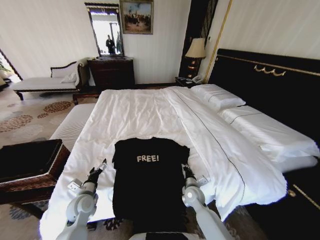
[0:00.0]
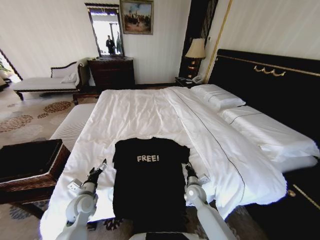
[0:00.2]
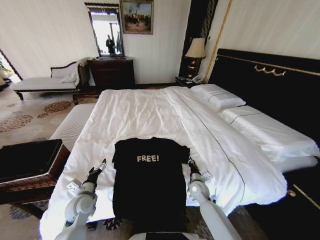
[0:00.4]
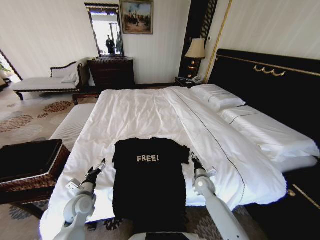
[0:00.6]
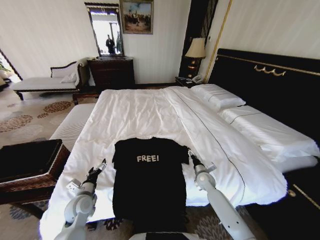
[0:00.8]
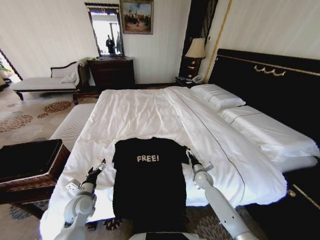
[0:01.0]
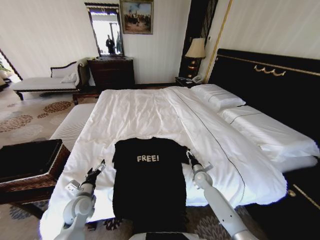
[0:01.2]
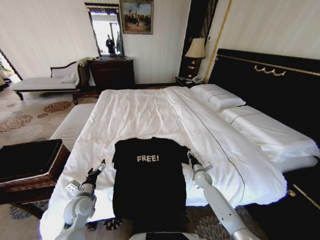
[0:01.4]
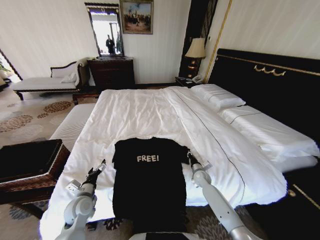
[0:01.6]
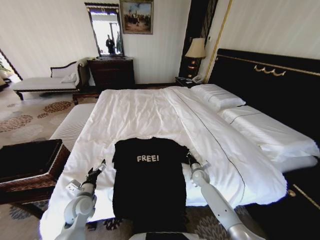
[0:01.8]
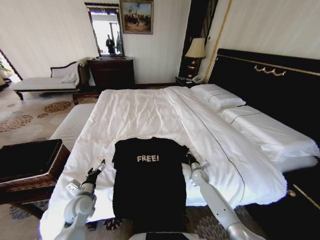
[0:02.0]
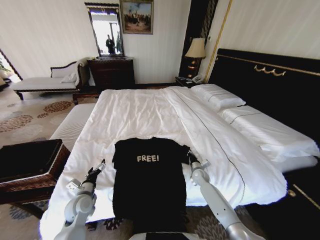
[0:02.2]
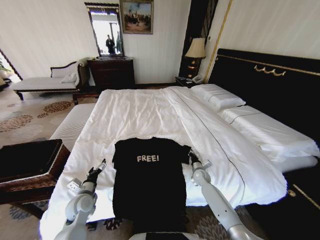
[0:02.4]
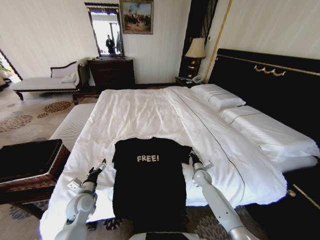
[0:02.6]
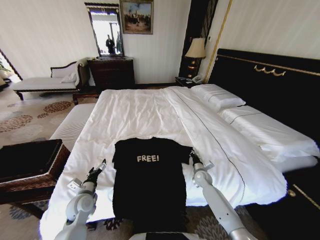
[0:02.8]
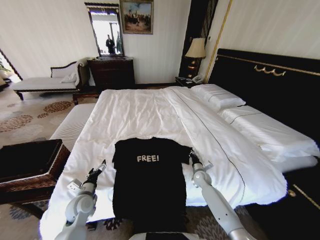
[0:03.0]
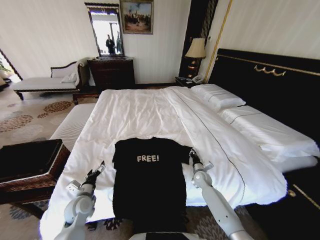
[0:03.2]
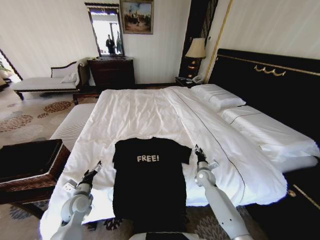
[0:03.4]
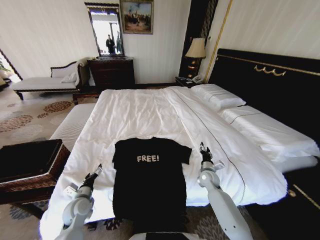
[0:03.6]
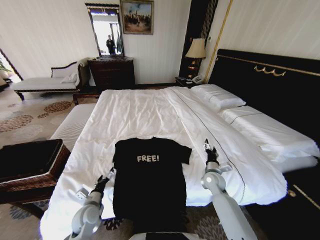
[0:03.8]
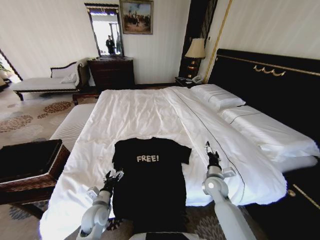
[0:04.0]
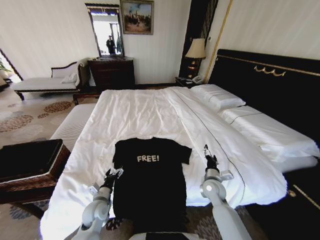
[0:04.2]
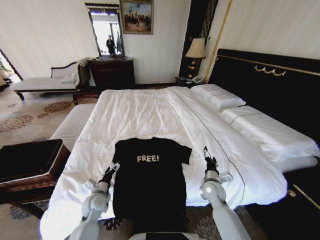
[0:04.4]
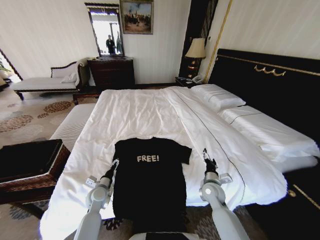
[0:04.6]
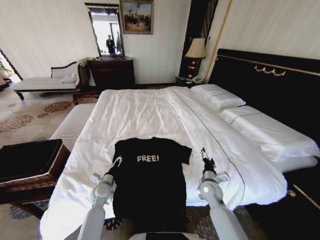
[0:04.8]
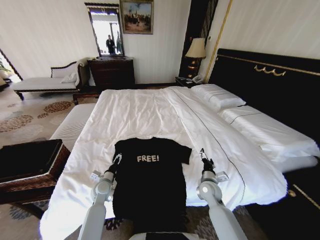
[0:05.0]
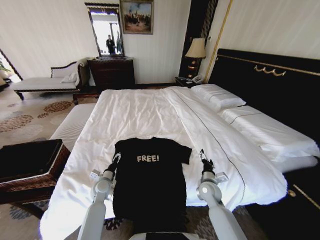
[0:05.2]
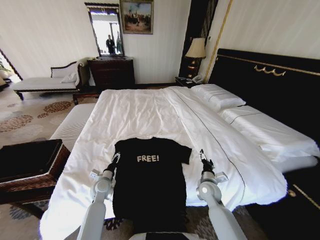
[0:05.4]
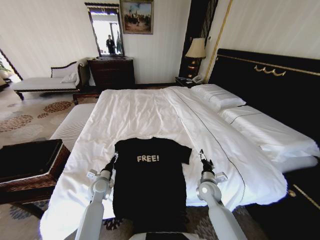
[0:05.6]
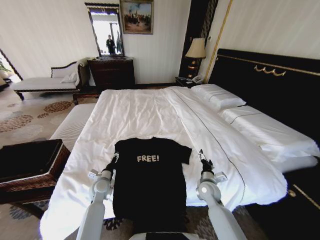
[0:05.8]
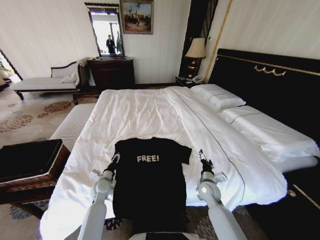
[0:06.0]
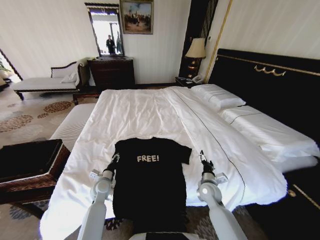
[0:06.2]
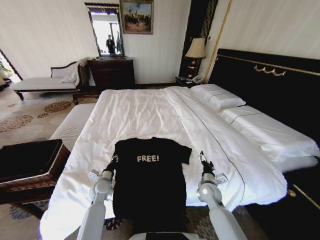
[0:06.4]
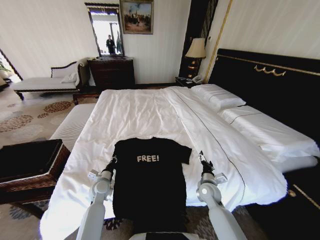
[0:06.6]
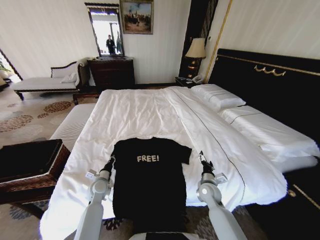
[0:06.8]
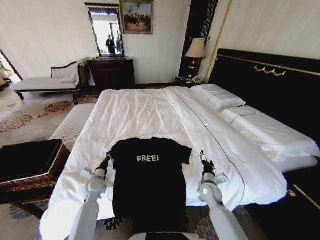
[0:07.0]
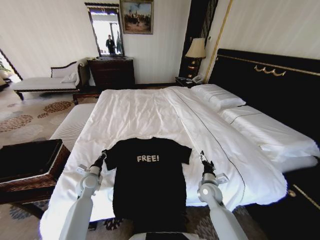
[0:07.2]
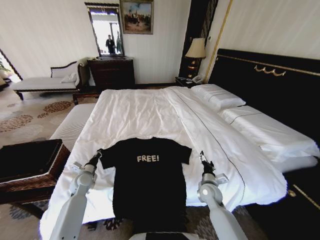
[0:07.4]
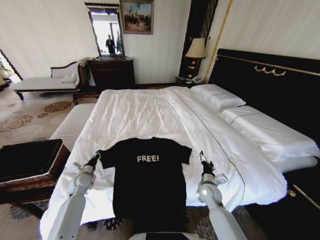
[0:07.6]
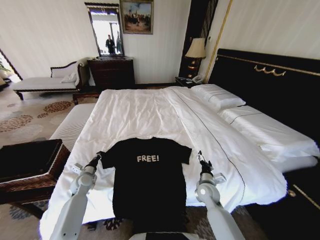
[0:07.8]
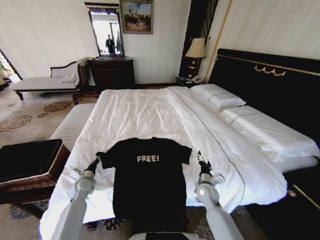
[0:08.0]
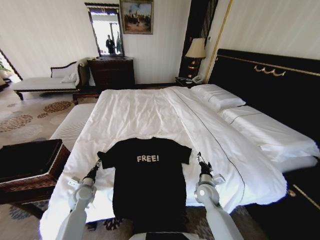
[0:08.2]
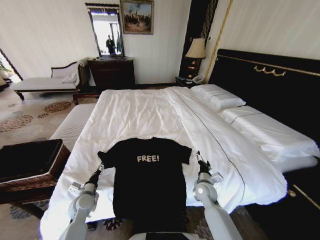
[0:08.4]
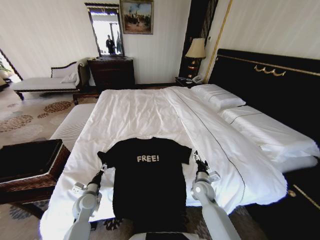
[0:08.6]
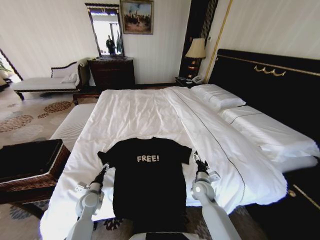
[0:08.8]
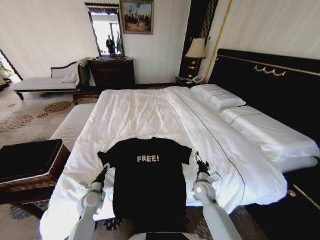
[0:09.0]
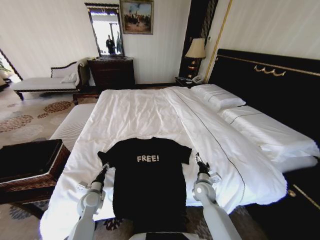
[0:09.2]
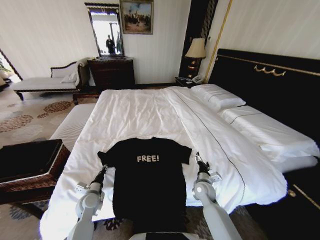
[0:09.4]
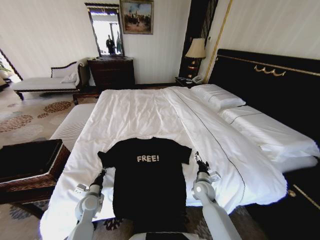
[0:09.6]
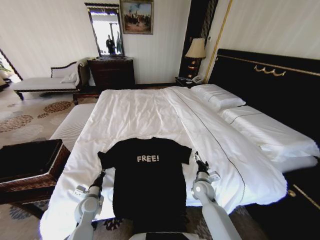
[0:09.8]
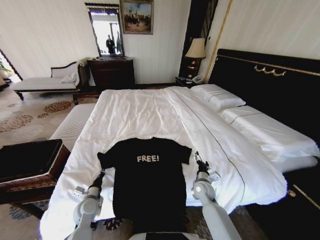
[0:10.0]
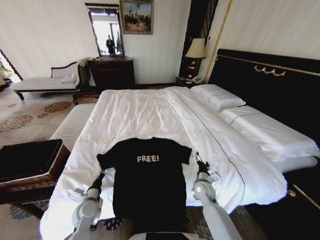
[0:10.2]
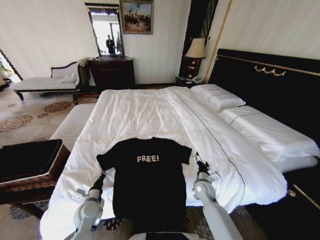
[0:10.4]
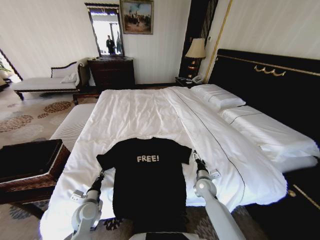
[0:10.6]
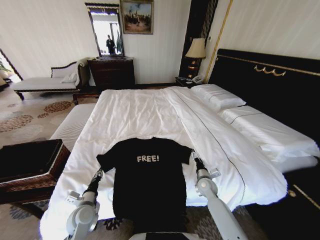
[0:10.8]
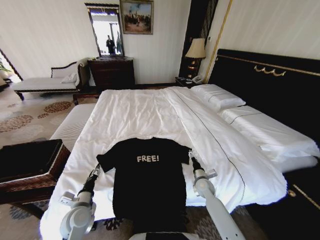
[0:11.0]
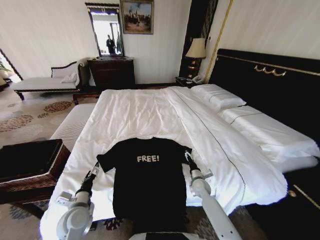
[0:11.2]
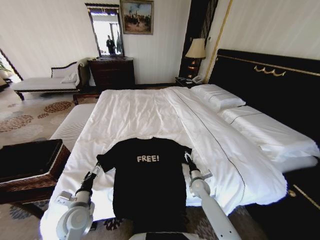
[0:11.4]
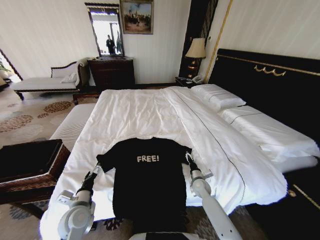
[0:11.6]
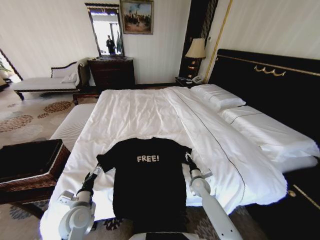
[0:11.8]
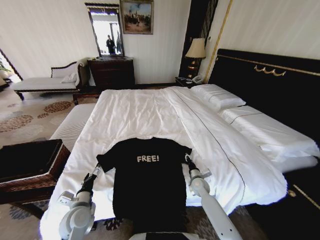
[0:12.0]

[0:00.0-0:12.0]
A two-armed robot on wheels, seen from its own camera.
Task of the whole recording: Fold the clothes on the bed and place them into the basket.
0:00.0 to 0:01.6: The right gripper shifts roughly 15 cm forward and to the right, and opens and closes again.
0:01.6 to 0:03.0: There are only small adjustments of the grippers.
0:03.0 to 0:04.4: The right gripper goes about 15 cm backward and upward, and opens its fingers. Meanwhile the left gripper changes place by some 5 cm.
0:04.4 to 0:06.0: The left gripper shifts some 5 cm forward.
0:06.0 to 0:07.6: The left gripper is displaced to the left by roughly 10 cm, and closes its fingers.
0:07.6 to 0:09.0: The left gripper goes roughly 10 cm backward and to the right, and opens up.
0:09.0 to 0:10.4: The left gripper closes up.
0:10.4 to 0:12.0: The left gripper goes some 5 cm upward, and opens its fingers; the right gripper closes.

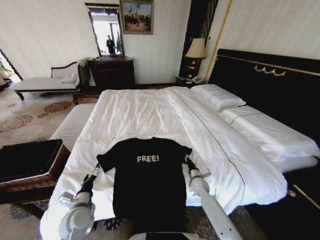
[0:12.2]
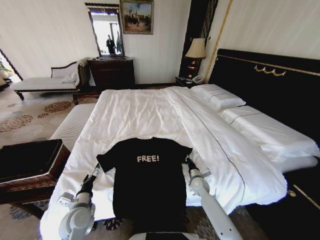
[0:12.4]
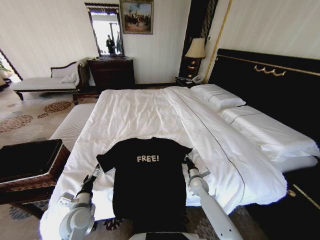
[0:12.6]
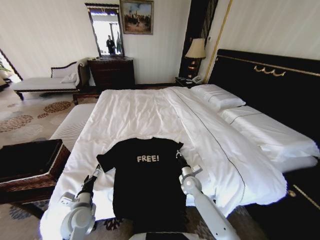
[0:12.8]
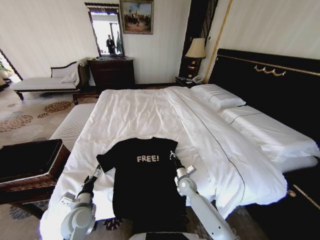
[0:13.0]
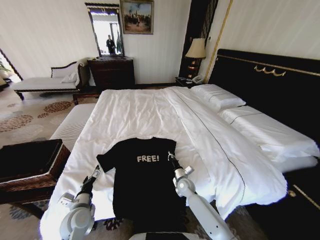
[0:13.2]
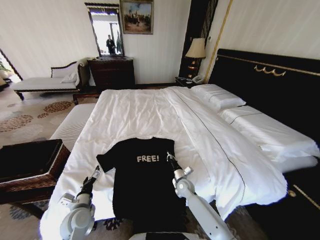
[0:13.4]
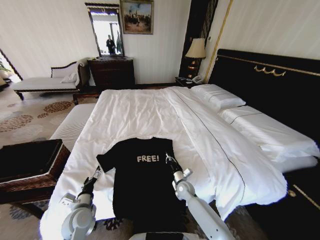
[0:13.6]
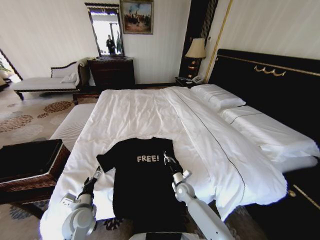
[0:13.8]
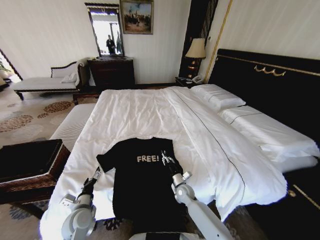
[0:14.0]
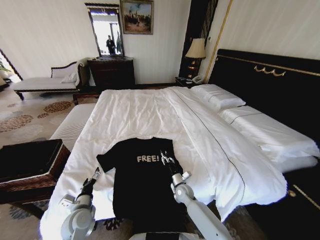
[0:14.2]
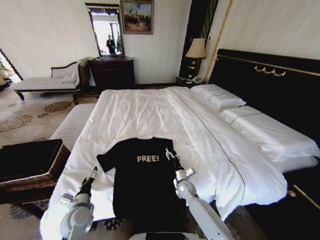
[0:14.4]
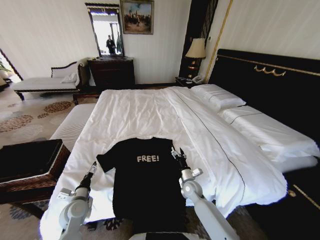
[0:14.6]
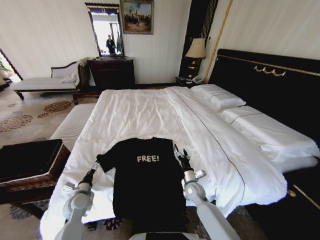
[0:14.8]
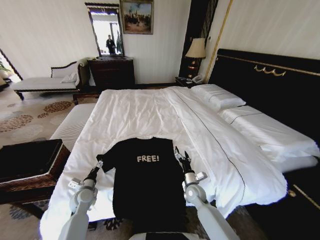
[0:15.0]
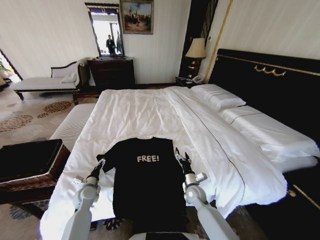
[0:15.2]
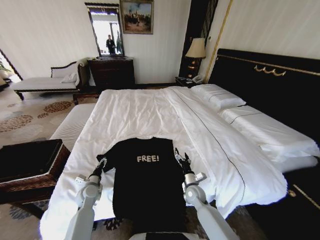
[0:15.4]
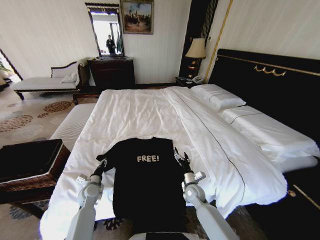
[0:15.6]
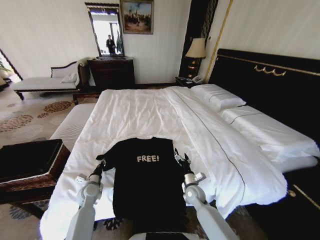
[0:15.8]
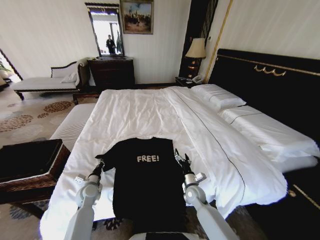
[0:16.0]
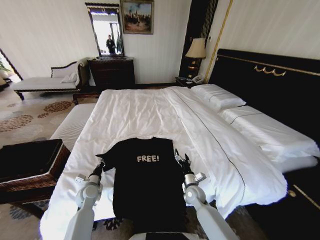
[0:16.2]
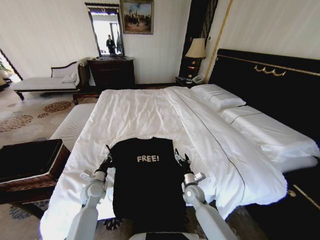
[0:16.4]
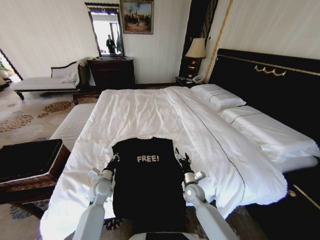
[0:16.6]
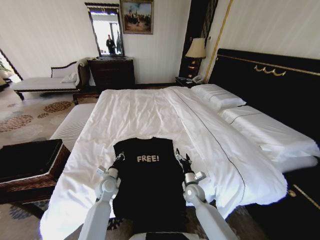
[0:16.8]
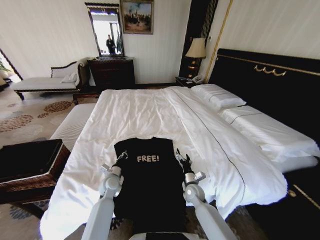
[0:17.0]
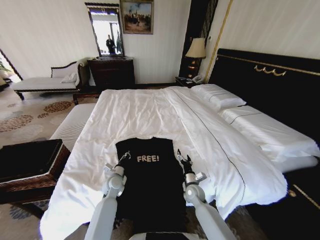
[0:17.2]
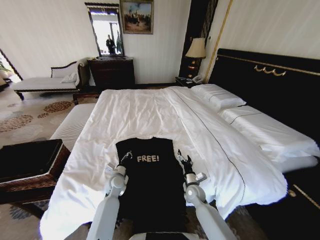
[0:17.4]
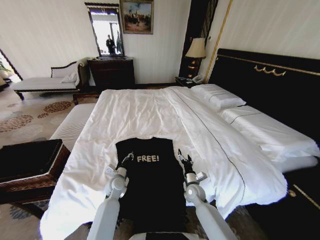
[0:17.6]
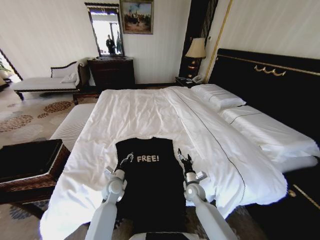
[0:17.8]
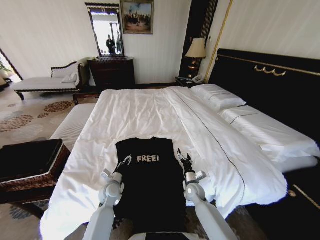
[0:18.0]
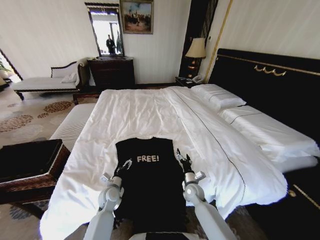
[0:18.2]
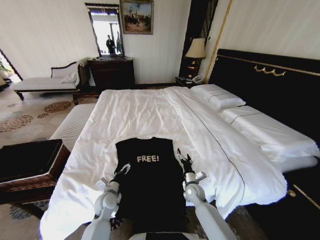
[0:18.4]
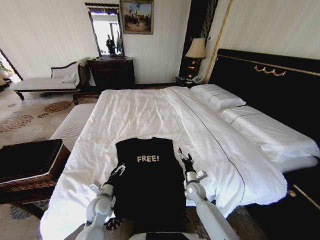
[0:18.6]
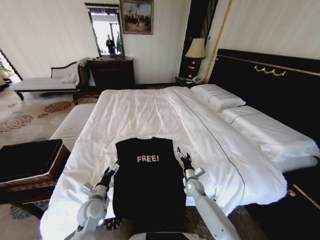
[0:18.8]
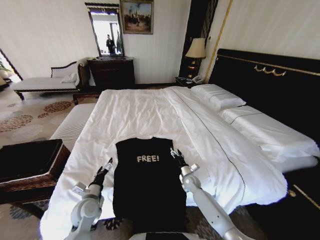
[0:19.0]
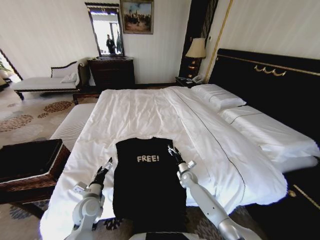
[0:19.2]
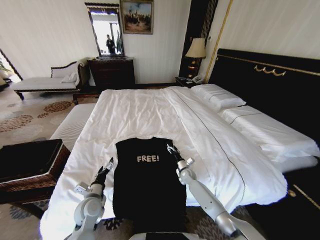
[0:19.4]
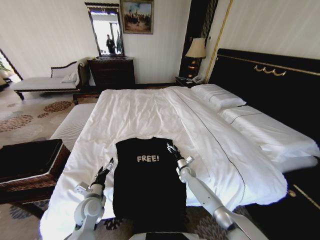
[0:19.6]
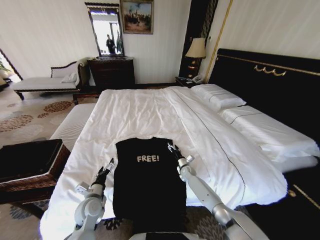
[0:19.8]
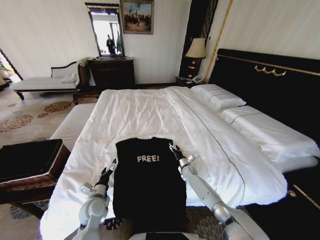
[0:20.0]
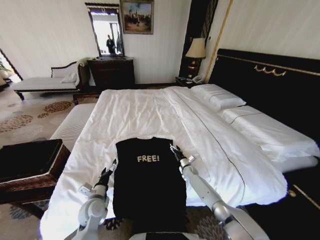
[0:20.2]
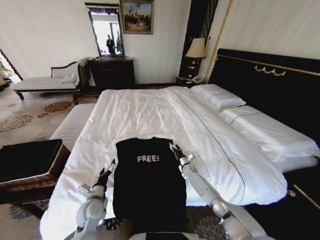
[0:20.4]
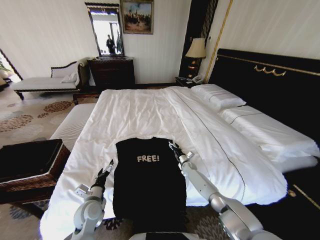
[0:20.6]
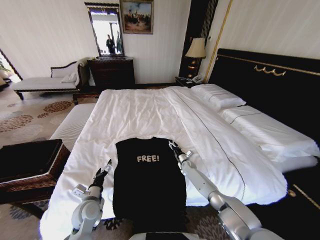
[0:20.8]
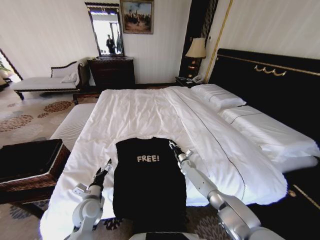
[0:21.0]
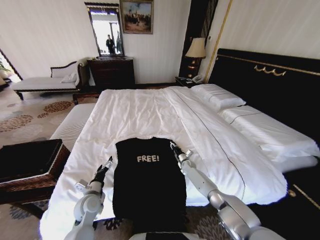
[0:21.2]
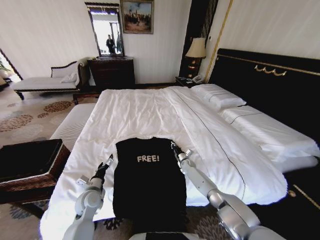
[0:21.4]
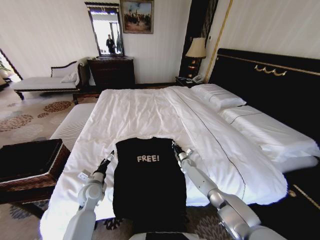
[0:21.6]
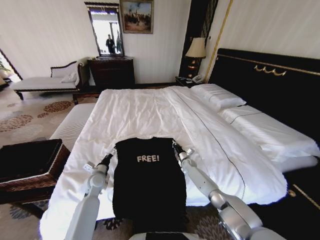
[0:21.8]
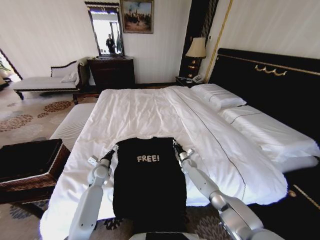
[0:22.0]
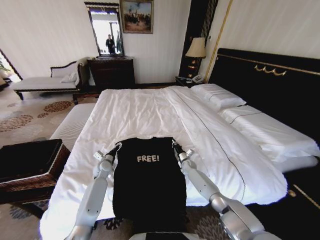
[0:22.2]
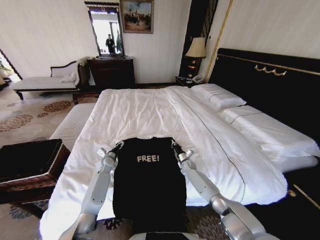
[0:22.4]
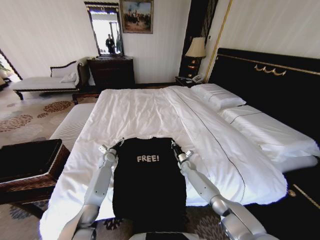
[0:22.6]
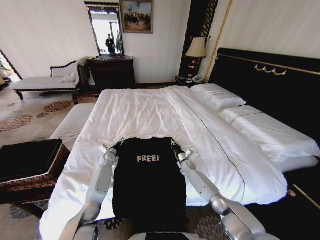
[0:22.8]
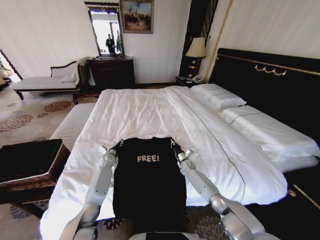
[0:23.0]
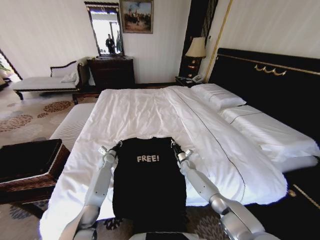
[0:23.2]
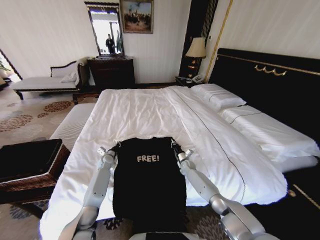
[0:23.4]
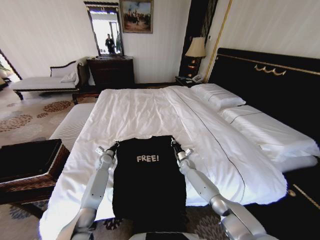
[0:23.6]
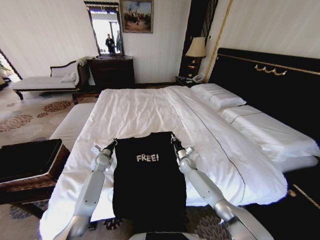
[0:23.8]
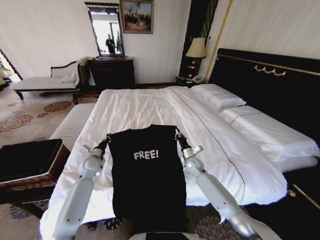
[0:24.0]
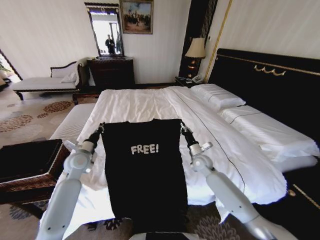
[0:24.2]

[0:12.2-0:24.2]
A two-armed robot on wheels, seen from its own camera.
Task of the whole recording: Fold the clothes on the bed and place them into the basket.
0:12.2 to 0:13.8: The right gripper moves to the left, some 10 cm.
0:13.8 to 0:15.2: The right gripper ends up roughly 5 cm from where it was, and opens its fingers, while the left gripper goes about 10 cm forward.
0:15.2 to 0:16.6: The left gripper goes approximately 5 cm to the right, and closes.
0:16.6 to 0:18.2: The left gripper shifts by roughly 5 cm, and opens up.
0:18.2 to 0:19.8: The left gripper goes approximately 10 cm backward, to the left and upward; the right gripper moves forward, some 15 cm.
0:19.8 to 0:21.2: The right gripper shifts by approximately 5 cm, and closes up.
0:21.2 to 0:22.6: The left gripper travels forward by some 25 cm.
0:22.6 to 0:24.2: The right gripper heads upward, covering approximately 20 cm. Meanwhile the left gripper goes roughly 20 cm upward and backward, and closes up.
